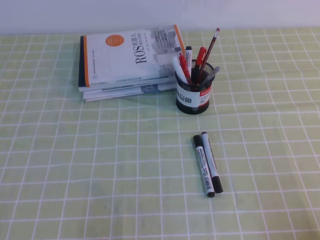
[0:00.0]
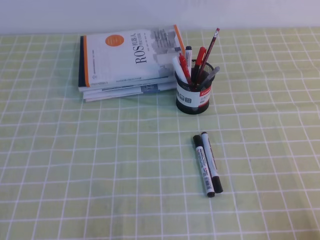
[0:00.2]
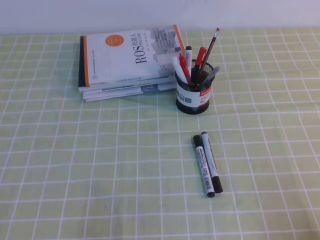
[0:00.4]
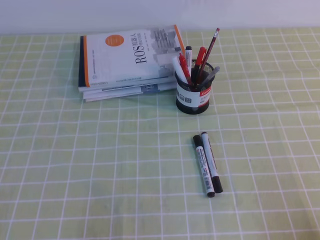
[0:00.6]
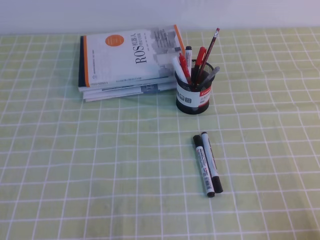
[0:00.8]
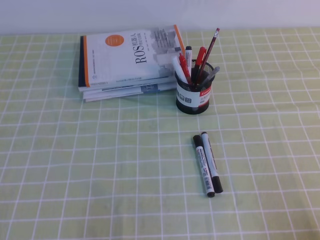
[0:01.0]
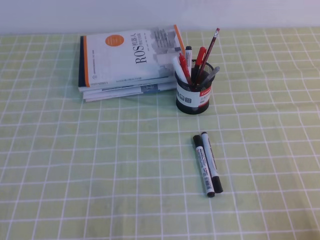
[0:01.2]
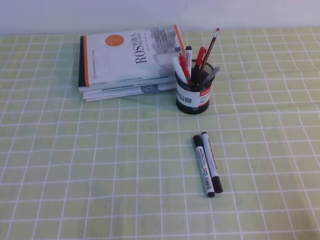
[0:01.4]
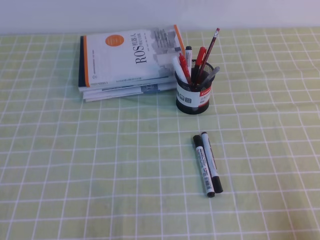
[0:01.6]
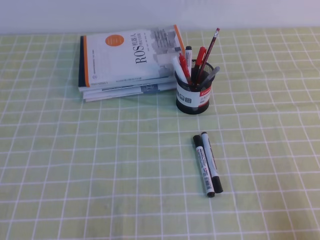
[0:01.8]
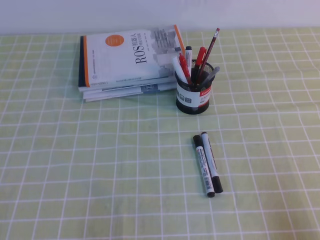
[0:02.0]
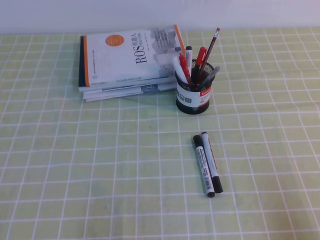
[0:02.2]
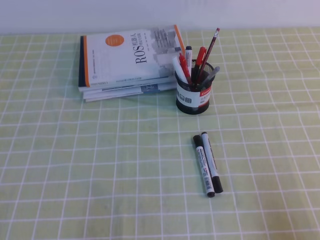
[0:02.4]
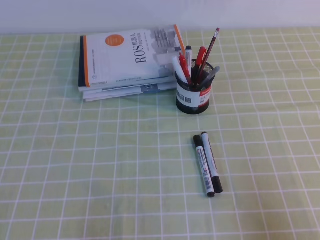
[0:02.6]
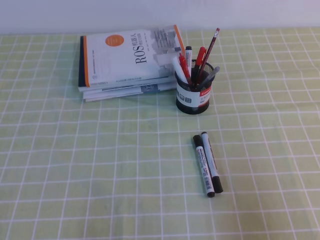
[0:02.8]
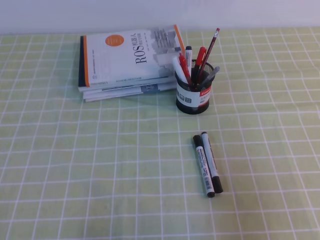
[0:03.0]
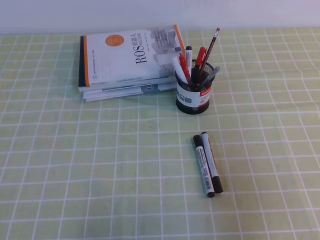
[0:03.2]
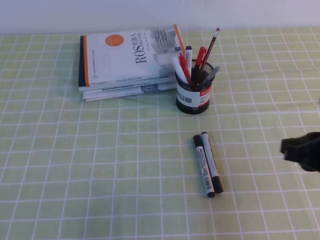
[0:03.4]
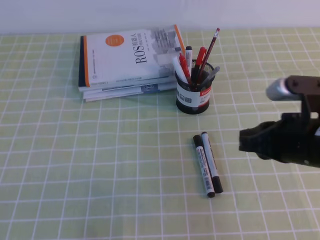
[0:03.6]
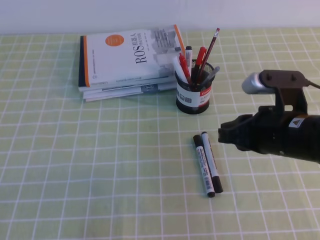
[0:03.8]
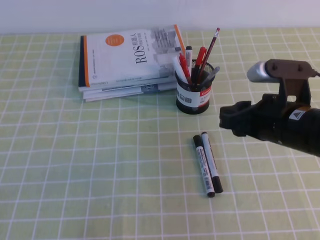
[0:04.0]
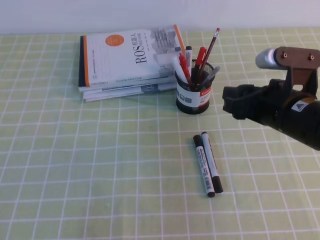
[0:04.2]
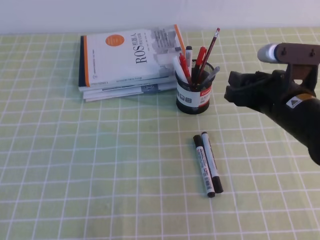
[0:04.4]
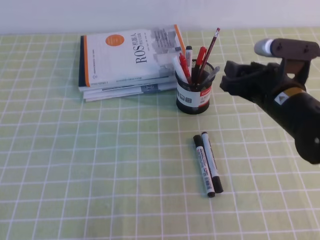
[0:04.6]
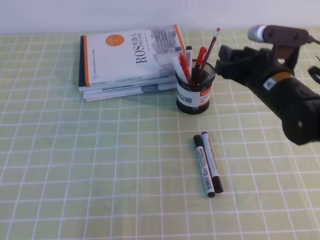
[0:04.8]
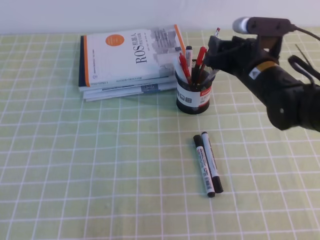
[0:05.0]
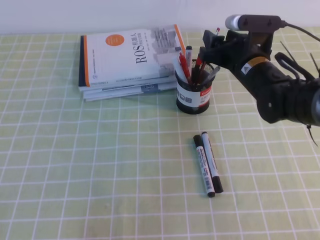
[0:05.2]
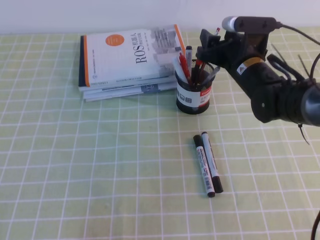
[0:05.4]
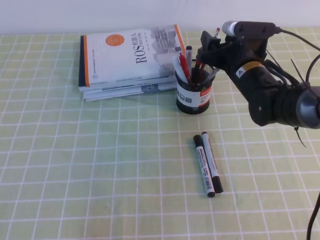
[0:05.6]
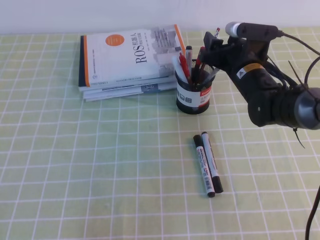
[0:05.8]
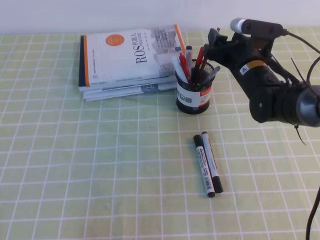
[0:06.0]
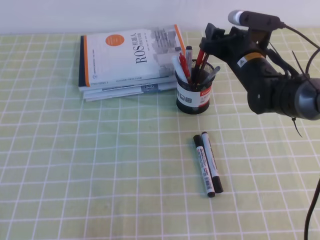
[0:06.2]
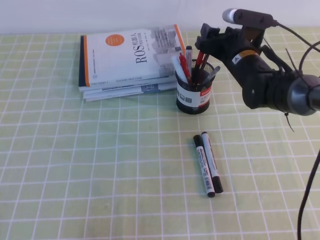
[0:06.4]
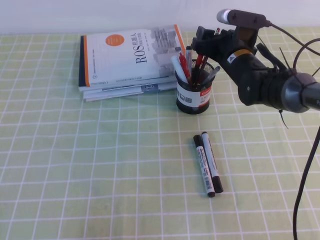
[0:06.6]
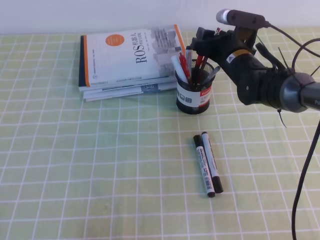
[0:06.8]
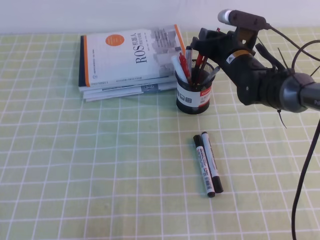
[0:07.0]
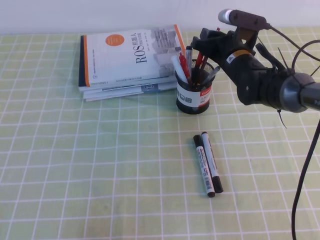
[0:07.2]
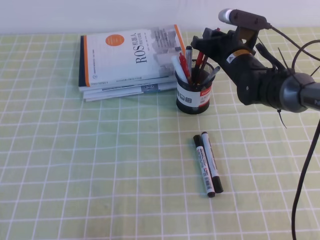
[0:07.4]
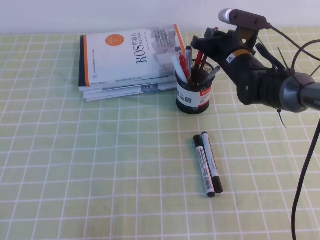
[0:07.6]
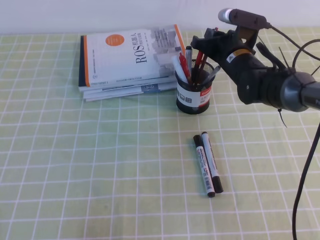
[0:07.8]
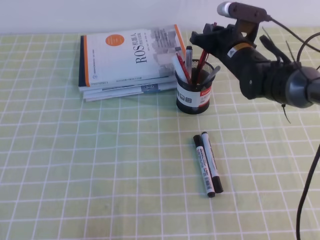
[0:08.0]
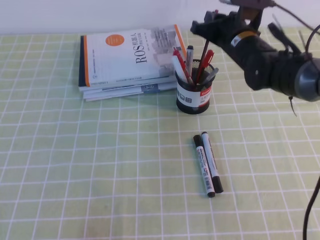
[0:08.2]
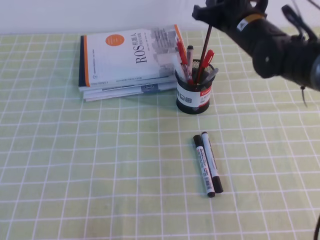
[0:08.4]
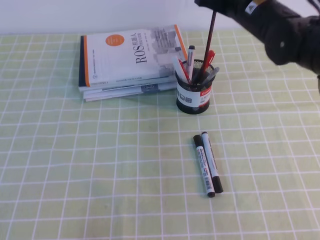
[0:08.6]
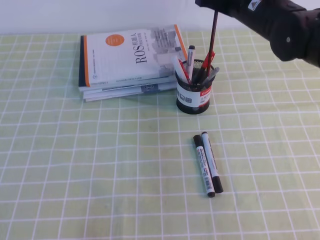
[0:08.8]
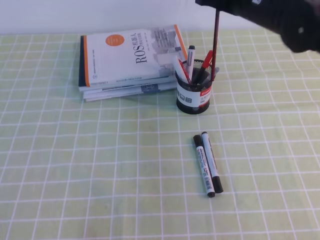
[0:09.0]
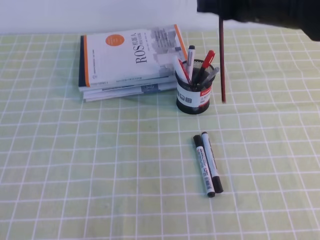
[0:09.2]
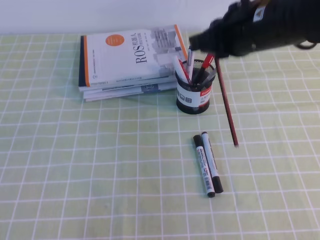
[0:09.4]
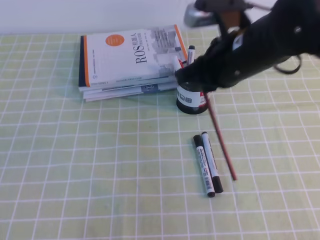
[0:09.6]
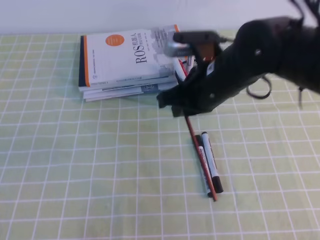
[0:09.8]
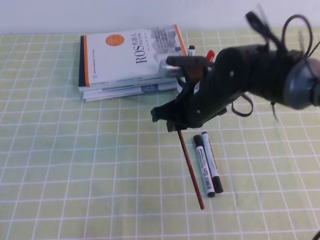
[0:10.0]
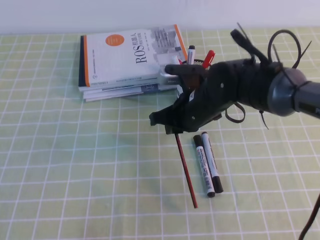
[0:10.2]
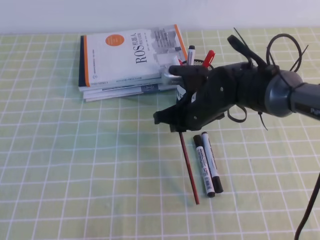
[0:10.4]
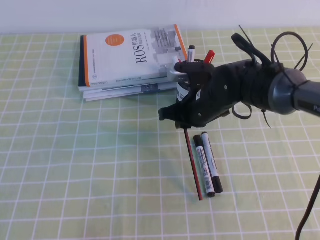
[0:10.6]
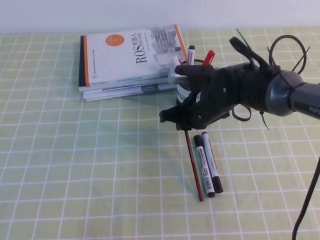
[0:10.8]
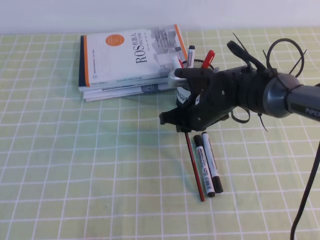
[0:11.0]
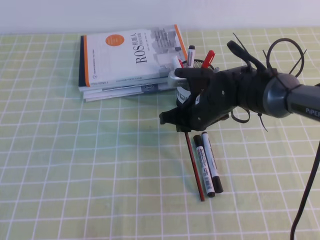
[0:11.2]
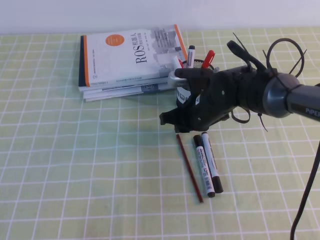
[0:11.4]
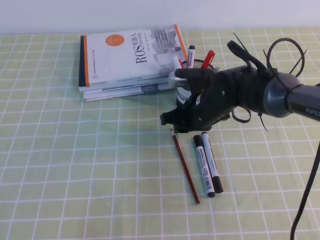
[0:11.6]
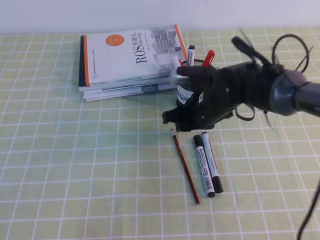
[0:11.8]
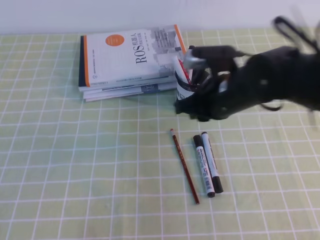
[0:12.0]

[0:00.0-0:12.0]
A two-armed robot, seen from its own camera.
0:01.6 to 0:03.0: The right gripper travels upward and forward by roughly 10 cm.
0:03.0 to 0:04.4: The right gripper goes some 20 cm forward and to the left, and opens its fingers.
0:04.4 to 0:06.0: The right gripper is displaced forward by roughly 15 cm.
0:06.0 to 0:07.6: The right gripper closes its fingers.
0:07.6 to 0:09.0: The right gripper is displaced upward and backward by some 15 cm.
0:09.0 to 0:10.4: The right gripper travels downward and to the left by roughly 15 cm.
0:10.4 to 0:12.0: The right gripper moves roughly 5 cm.

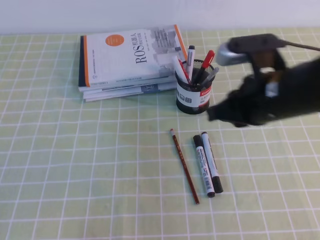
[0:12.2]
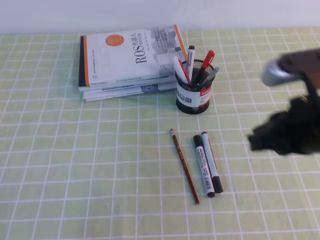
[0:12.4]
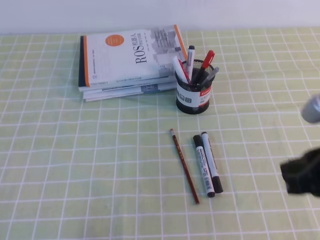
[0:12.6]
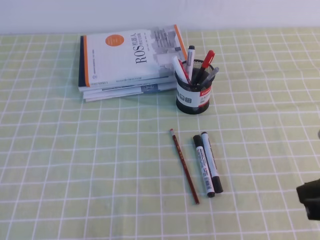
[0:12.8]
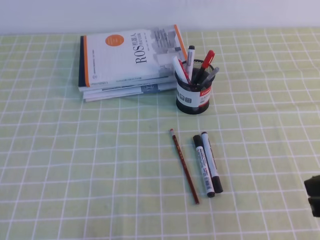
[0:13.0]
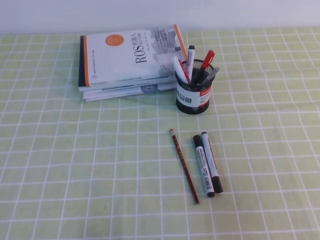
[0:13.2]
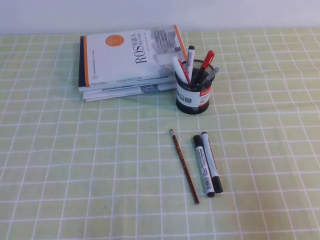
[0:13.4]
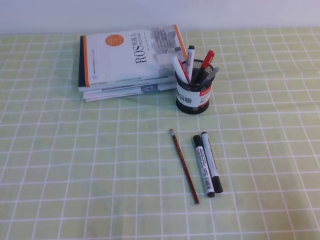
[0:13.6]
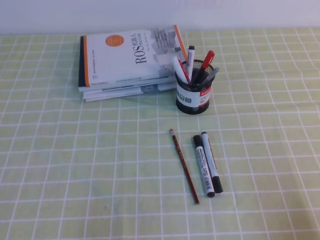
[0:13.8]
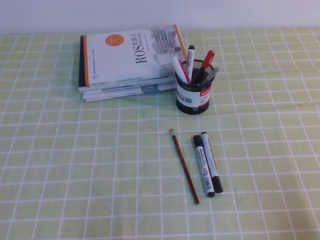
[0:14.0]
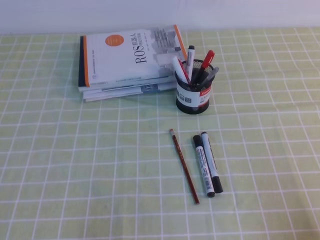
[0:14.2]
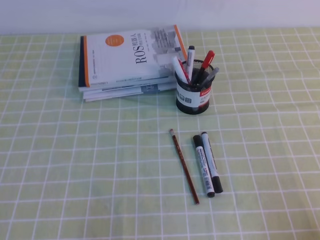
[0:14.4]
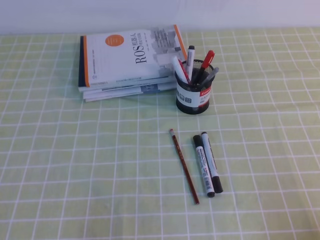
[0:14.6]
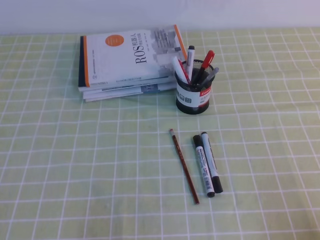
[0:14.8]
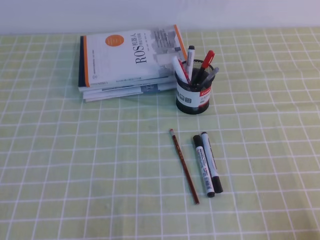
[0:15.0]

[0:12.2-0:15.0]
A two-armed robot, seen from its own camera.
Step, 0:12.2 to 0:15.0: Pick up the pen from the pen holder.
0:12.2 to 0:13.6: The right gripper goes about 25 cm backward, to the right and downward.
